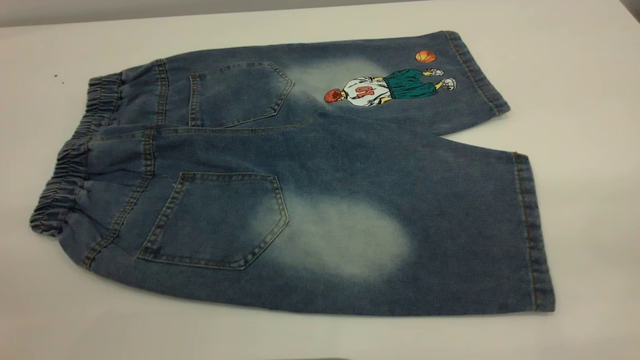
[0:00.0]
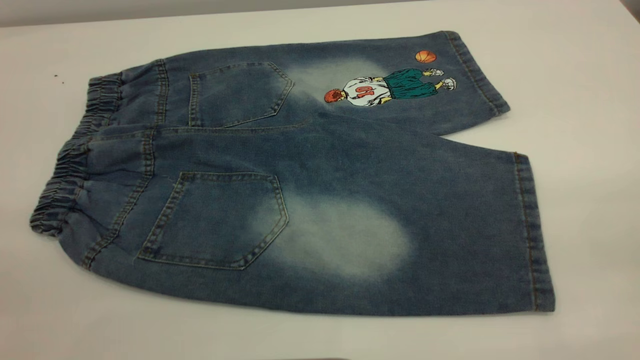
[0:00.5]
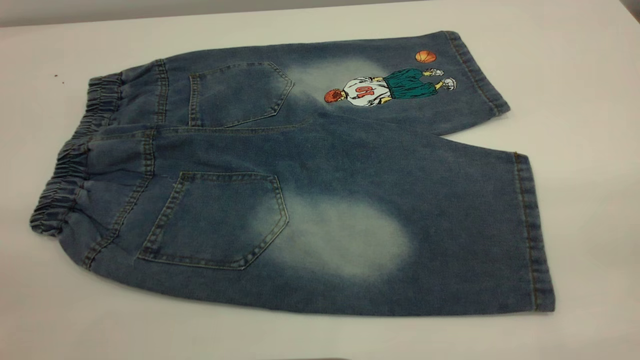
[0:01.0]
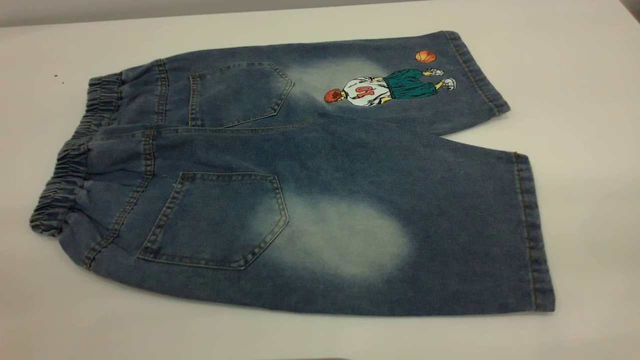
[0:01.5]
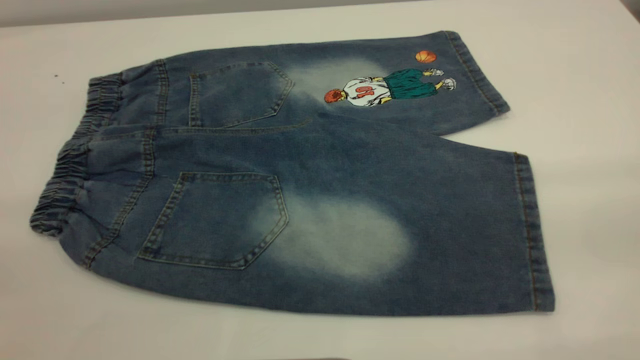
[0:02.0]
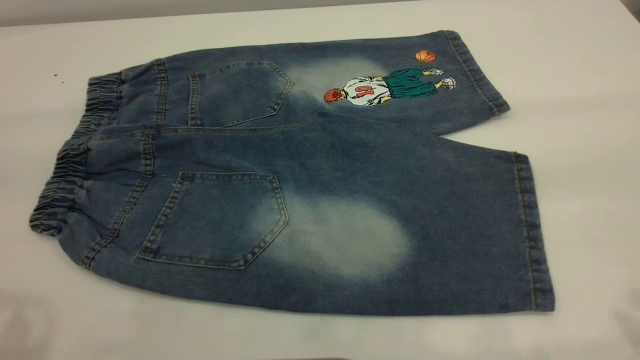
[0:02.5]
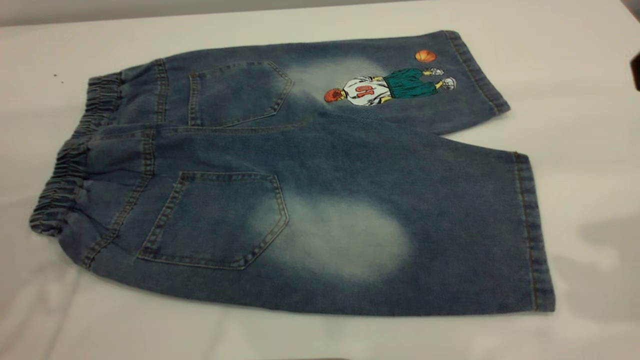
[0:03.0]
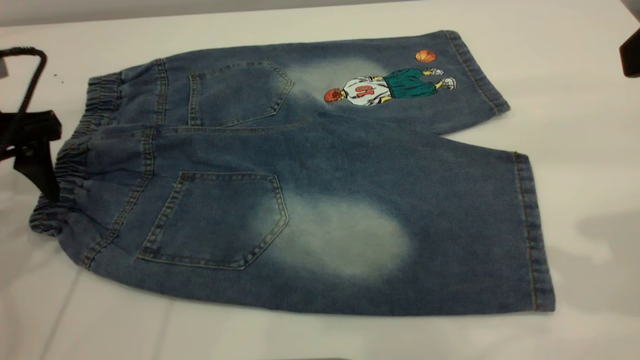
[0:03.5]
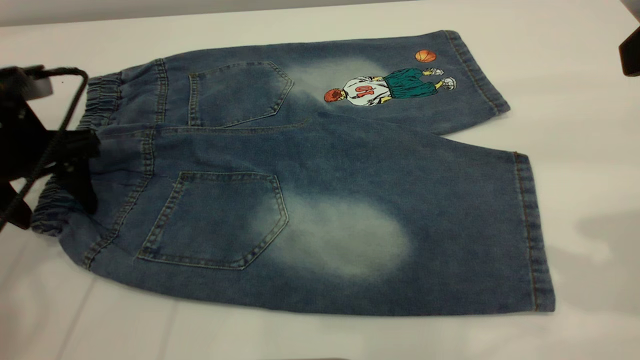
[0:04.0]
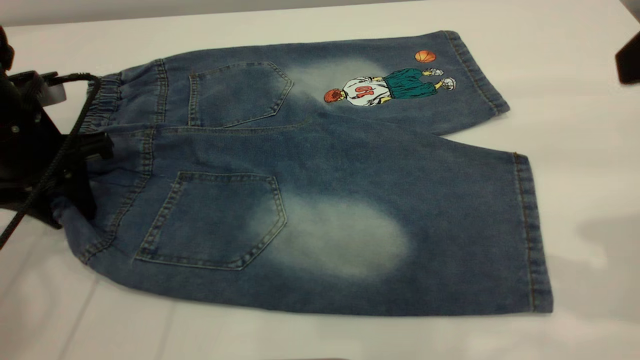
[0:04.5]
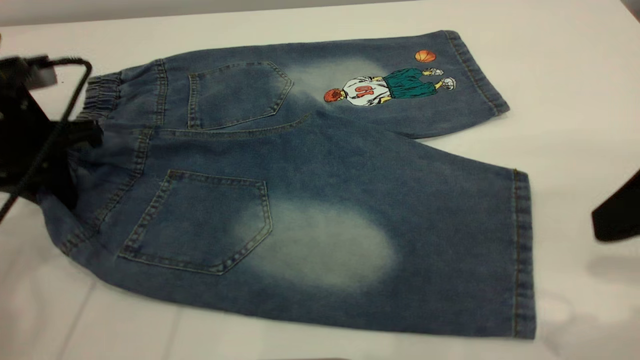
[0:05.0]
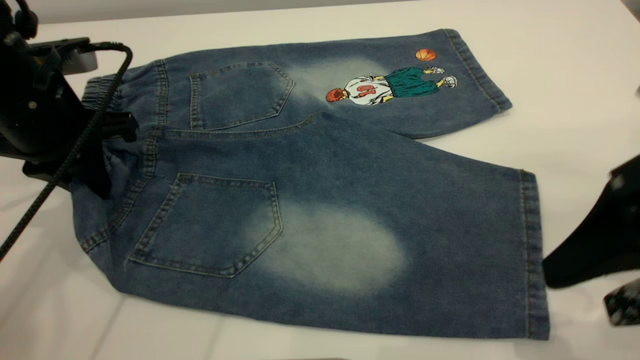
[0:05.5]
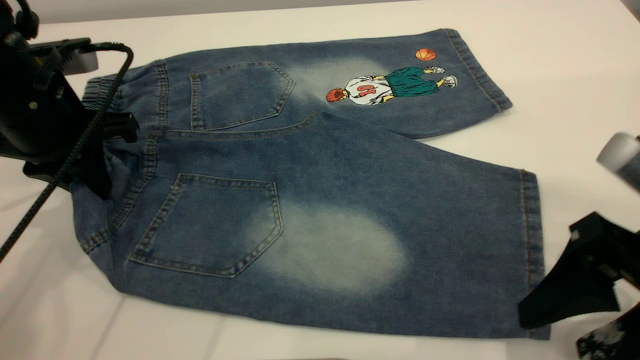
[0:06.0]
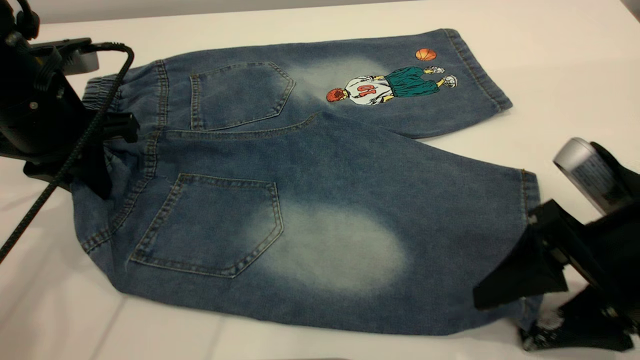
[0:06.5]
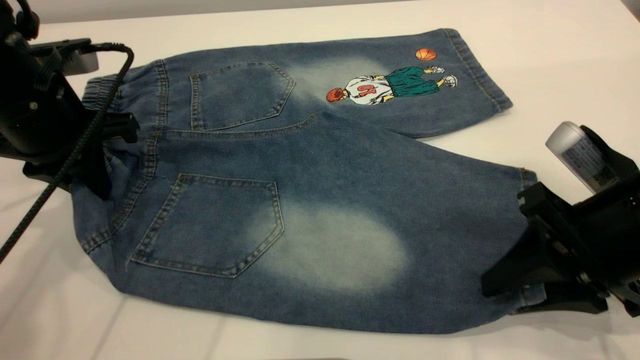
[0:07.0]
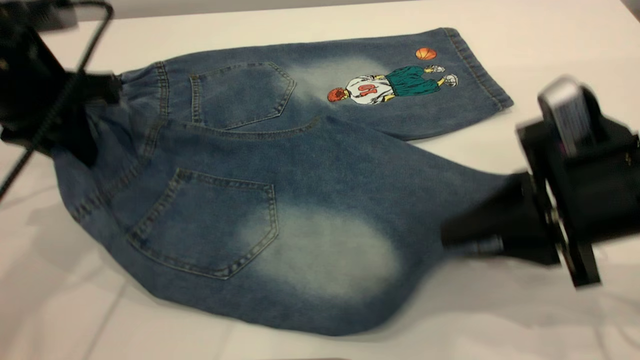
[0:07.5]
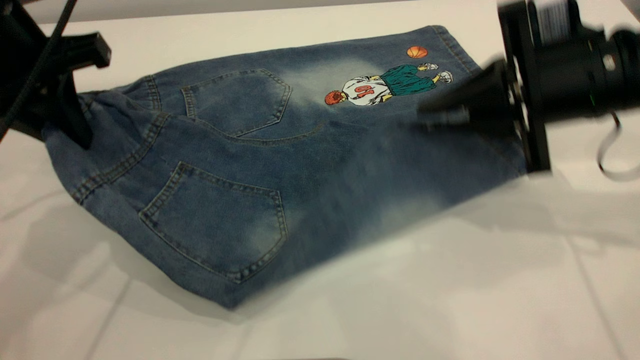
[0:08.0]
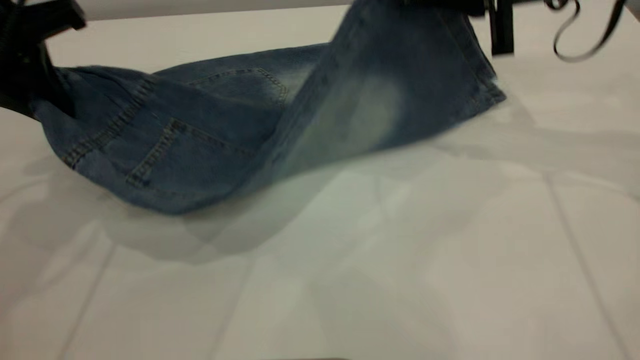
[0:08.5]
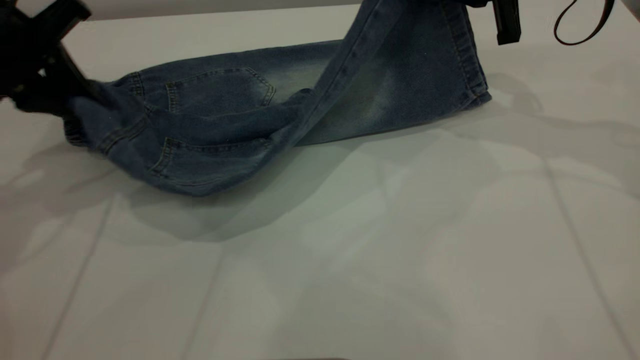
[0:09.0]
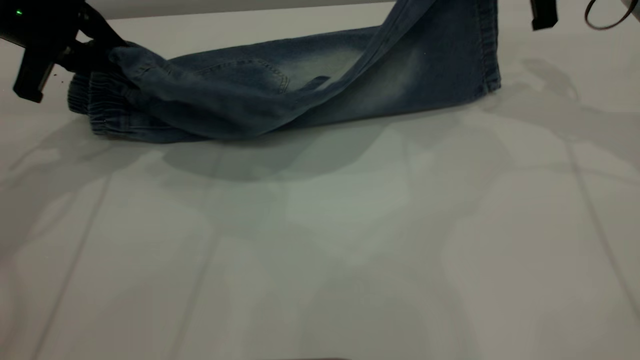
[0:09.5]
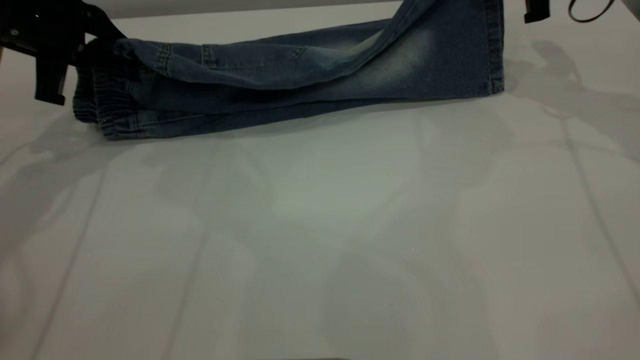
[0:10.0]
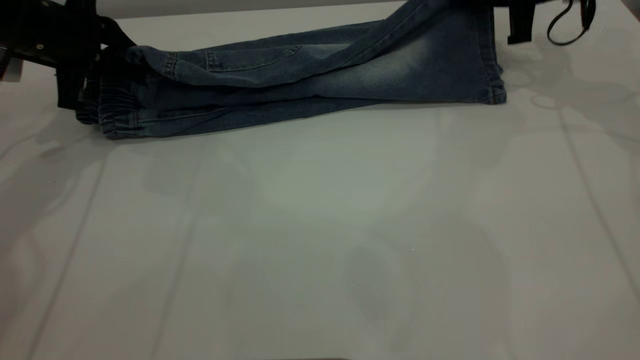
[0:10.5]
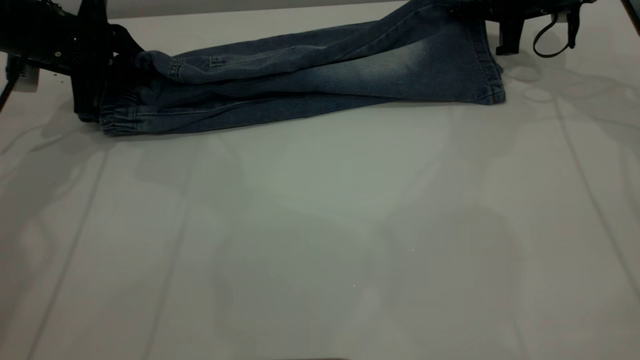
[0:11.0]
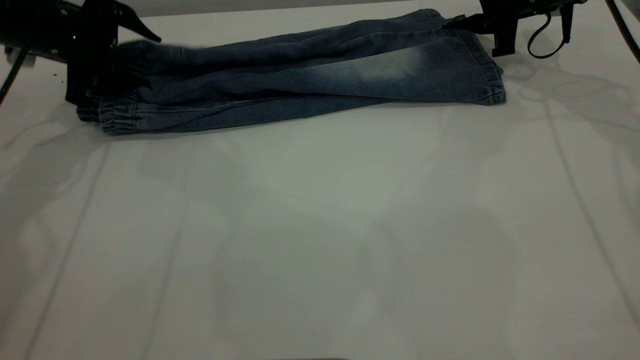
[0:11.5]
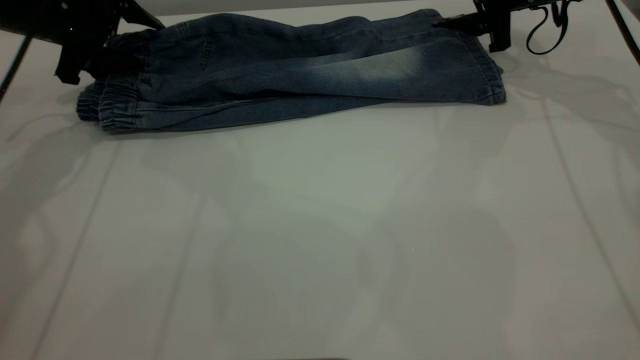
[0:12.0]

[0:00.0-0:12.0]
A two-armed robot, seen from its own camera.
0:02.0 to 0:04.0: The left gripper moves forward and downward, approximately 40 cm.
0:04.0 to 0:06.0: The left gripper closes up. The right gripper shifts about 20 cm downward.
0:06.0 to 0:08.0: The right gripper heads forward, covering roughly 15 cm, and closes its fingers. The left gripper moves upward, roughly 5 cm.
0:08.0 to 0:10.0: The right gripper heads forward, covering about 15 cm. The left gripper shifts about 10 cm forward, to the left and downward.
0:10.0 to 0:12.0: The left gripper travels forward by approximately 5 cm, and opens; the right gripper is displaced downward by approximately 5 cm, and opens.

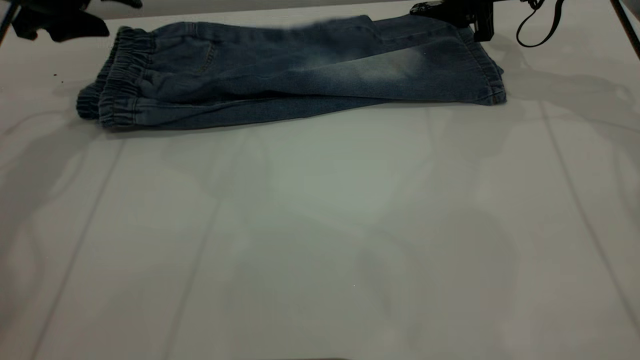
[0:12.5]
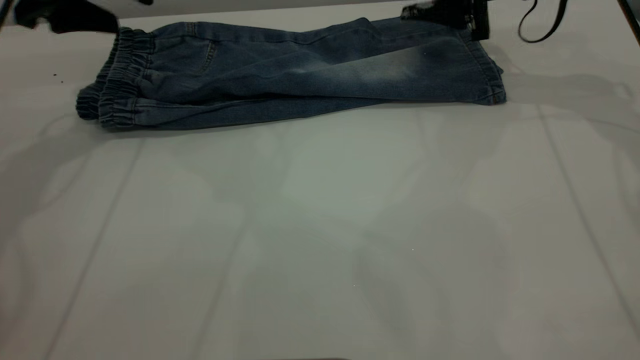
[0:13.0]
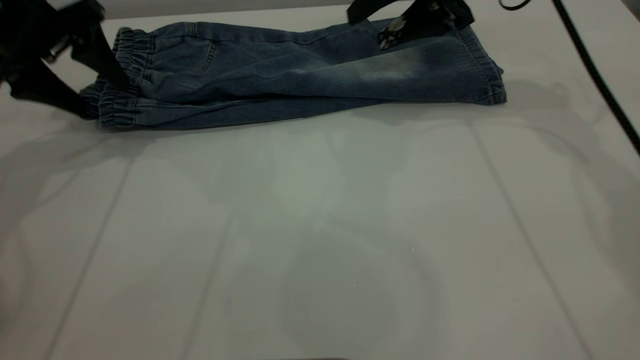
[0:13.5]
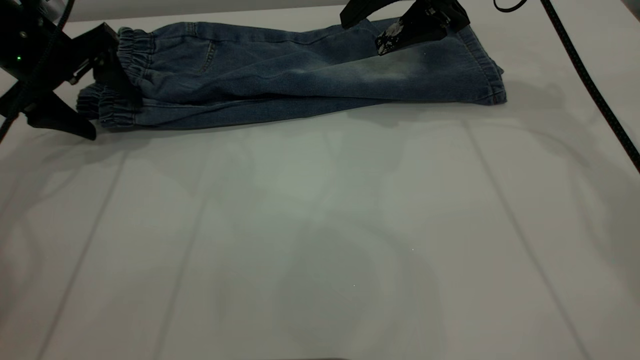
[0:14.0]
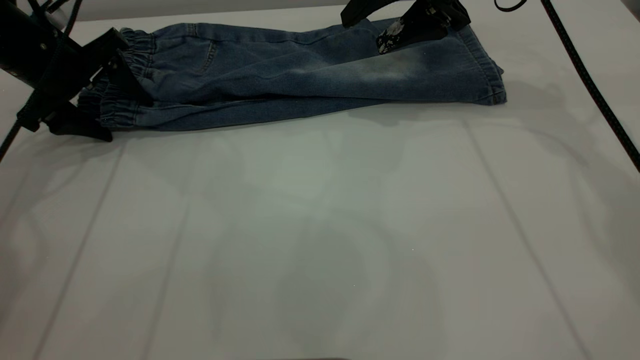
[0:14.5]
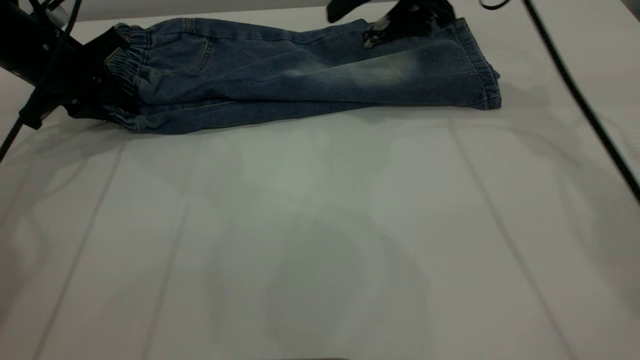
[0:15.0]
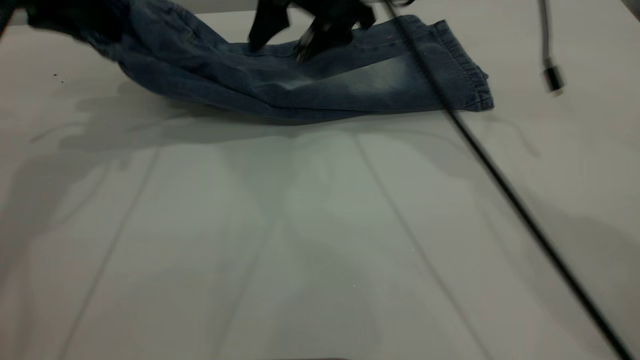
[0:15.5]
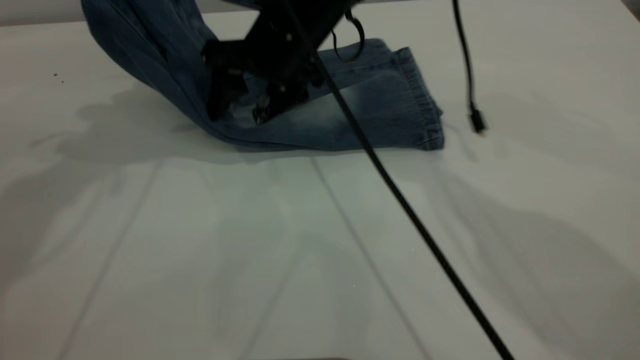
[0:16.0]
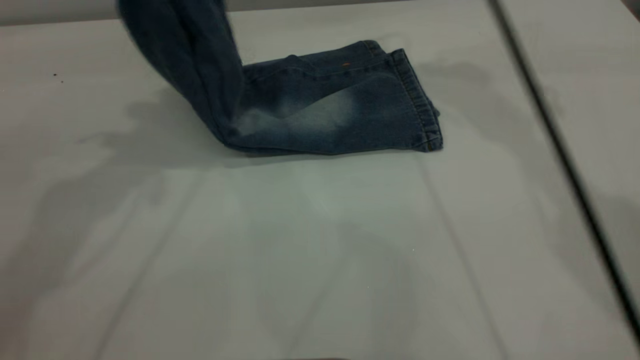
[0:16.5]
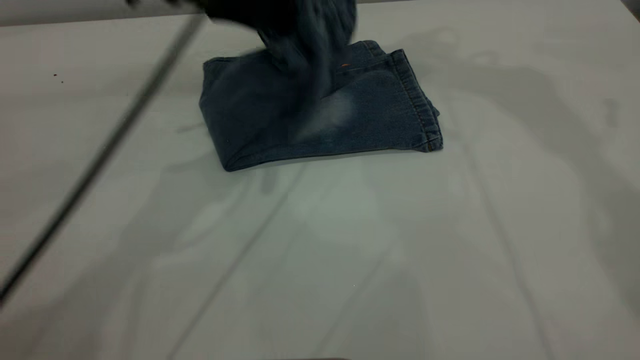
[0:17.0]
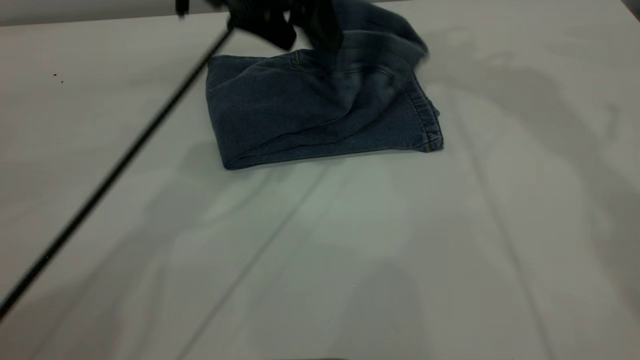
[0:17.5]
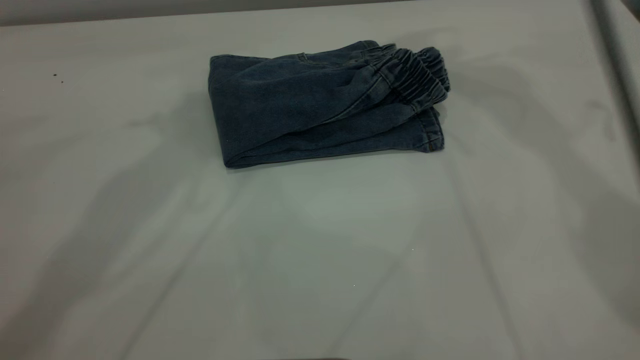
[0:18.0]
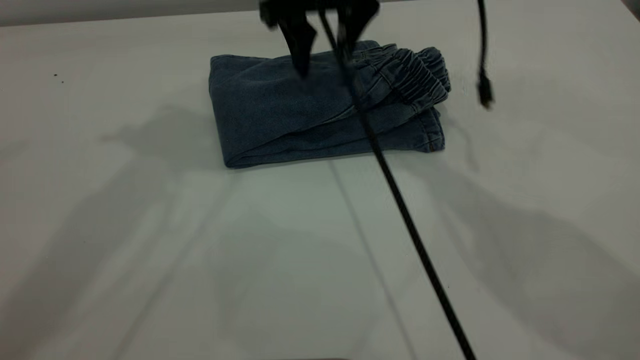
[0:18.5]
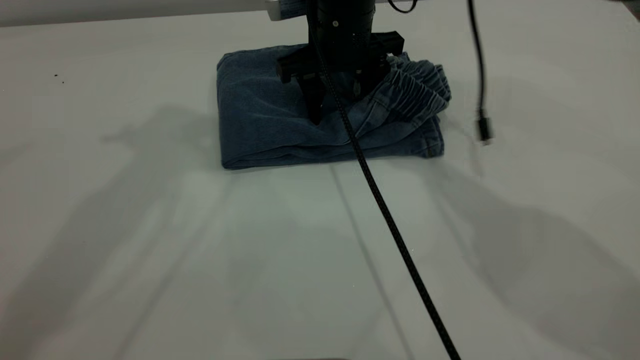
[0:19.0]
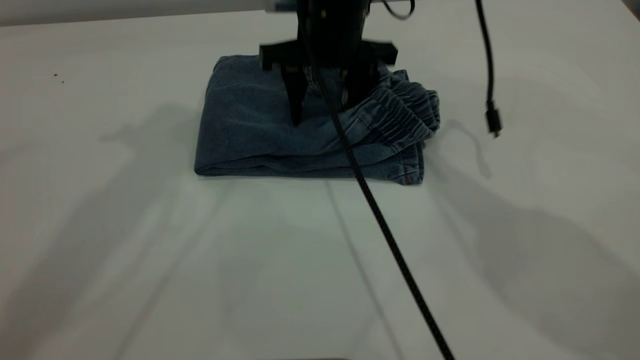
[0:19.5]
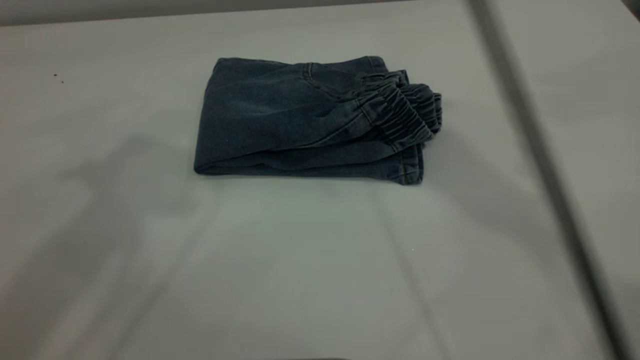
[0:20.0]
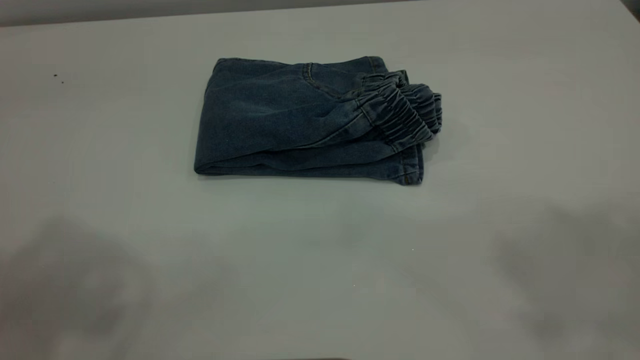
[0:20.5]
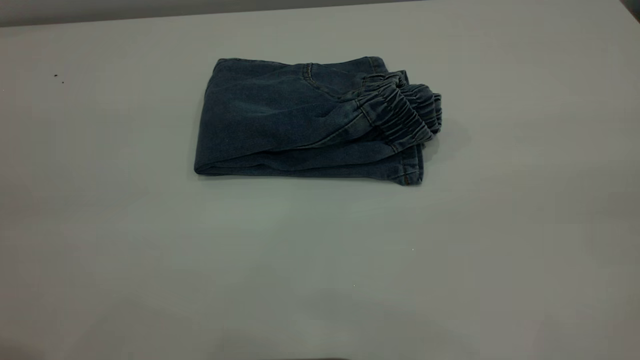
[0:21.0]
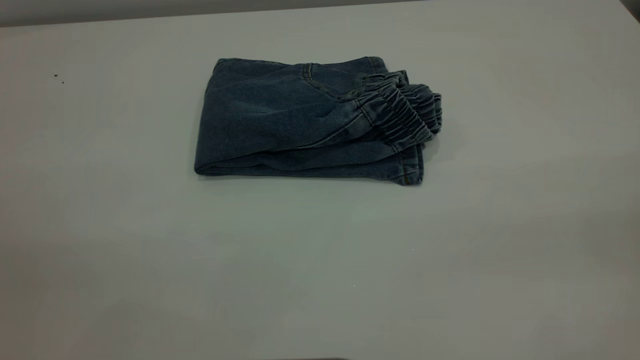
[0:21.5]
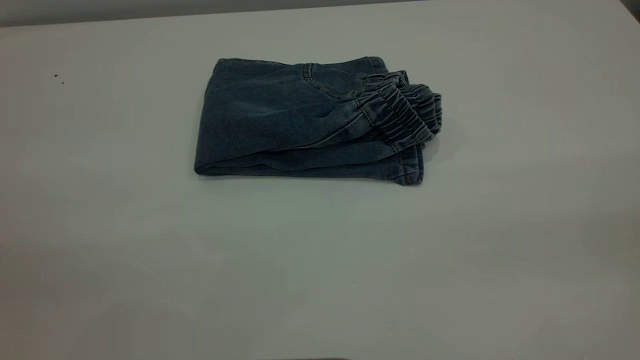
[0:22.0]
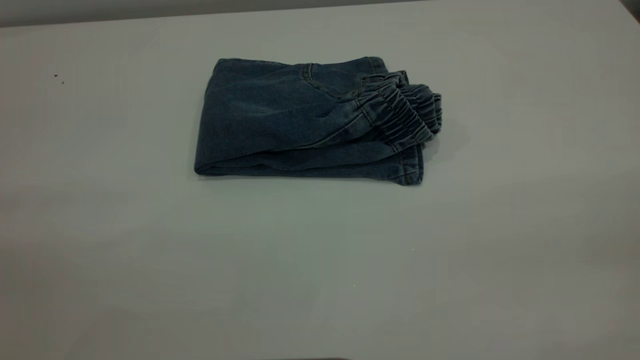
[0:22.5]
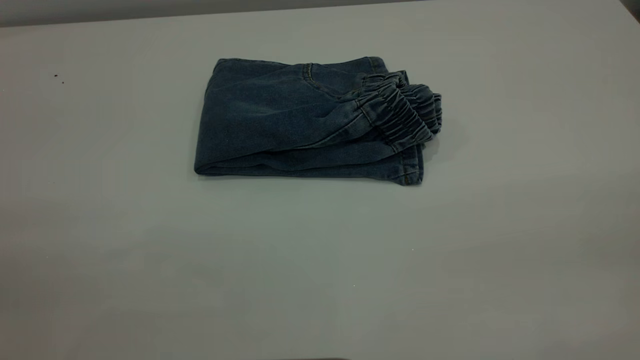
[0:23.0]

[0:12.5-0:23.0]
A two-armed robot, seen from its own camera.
Step, 0:13.0 to 0:18.0: Fold the pants from left to right.
0:12.5 to 0:14.5: The left gripper goes some 5 cm downward. Meanwhile the right gripper is displaced to the left by about 10 cm.
0:14.5 to 0:16.5: The right gripper goes approximately 15 cm upward and to the left, while the left gripper shifts roughly 20 cm upward and to the right, and closes.
0:16.5 to 0:19.0: The left gripper goes some 10 cm upward, and opens. The right gripper heads downward, covering approximately 20 cm.
0:19.0 to 0:21.0: The right gripper shifts roughly 50 cm backward, to the right and upward; the left gripper shifts about 25 cm backward.
